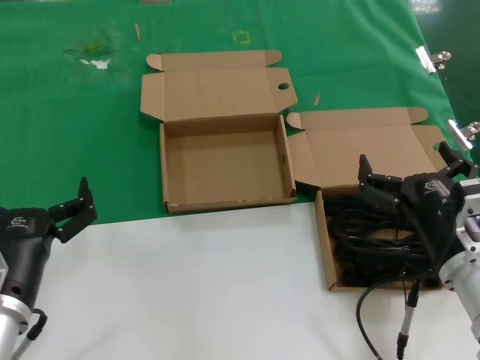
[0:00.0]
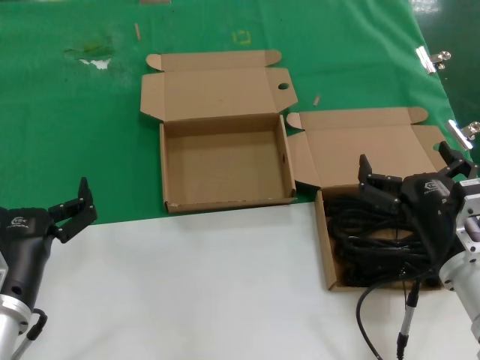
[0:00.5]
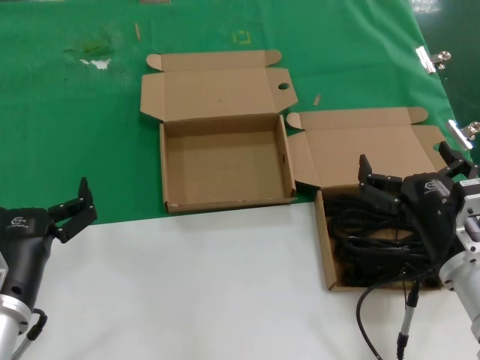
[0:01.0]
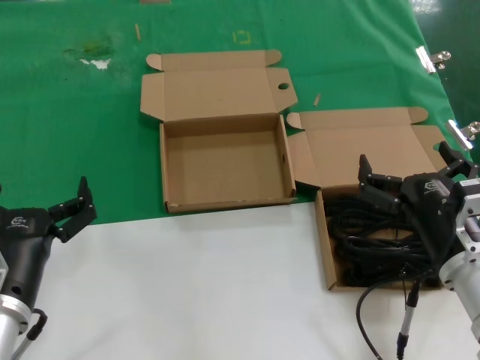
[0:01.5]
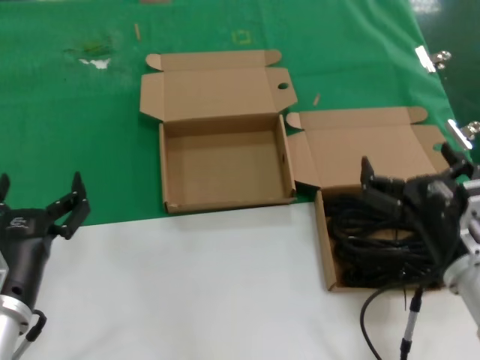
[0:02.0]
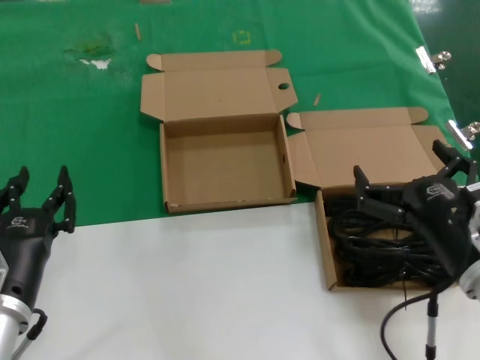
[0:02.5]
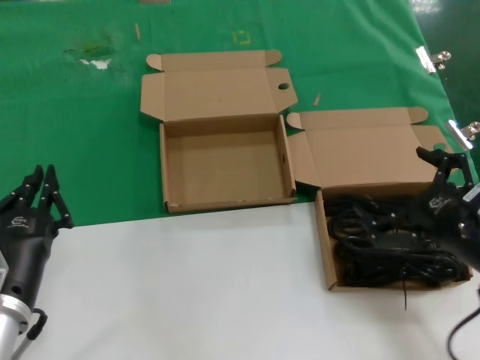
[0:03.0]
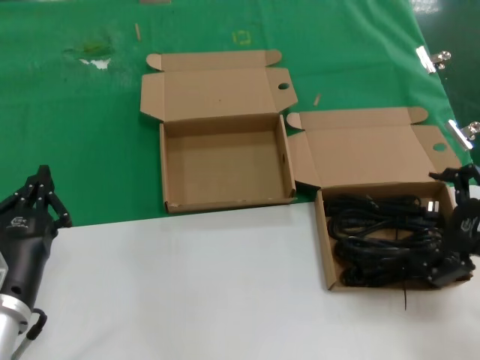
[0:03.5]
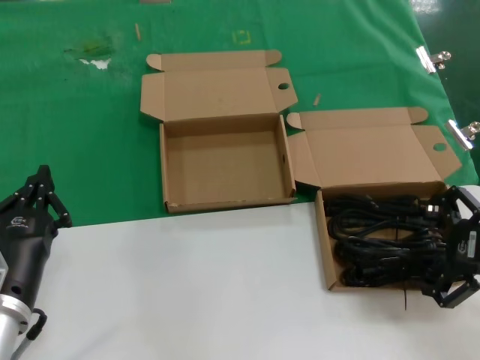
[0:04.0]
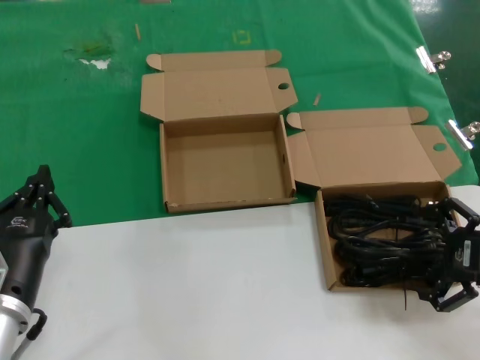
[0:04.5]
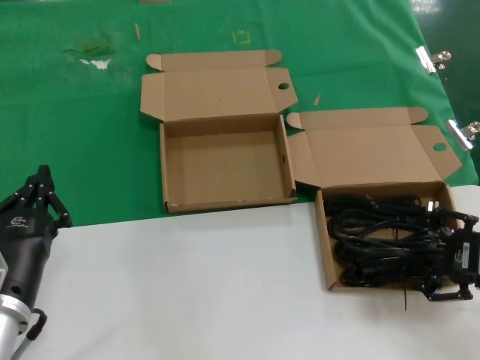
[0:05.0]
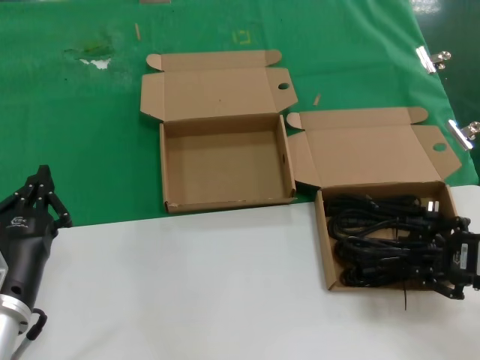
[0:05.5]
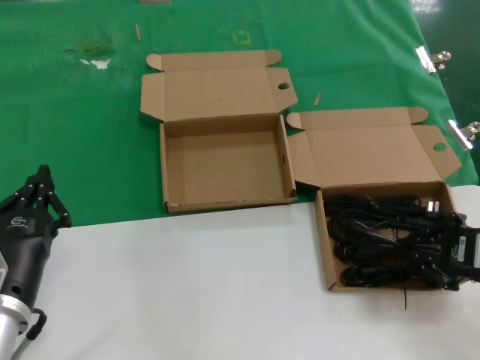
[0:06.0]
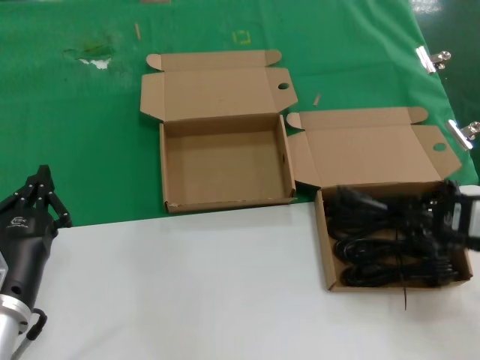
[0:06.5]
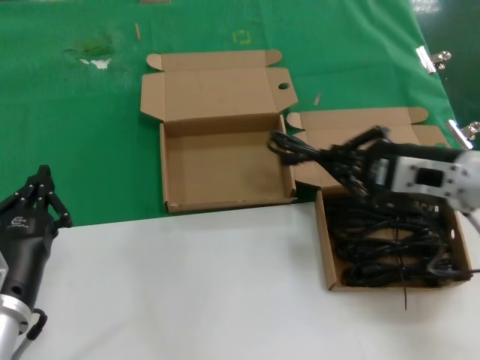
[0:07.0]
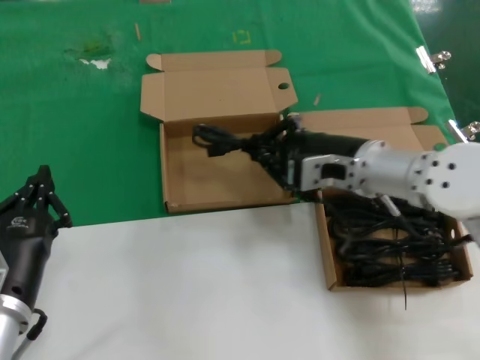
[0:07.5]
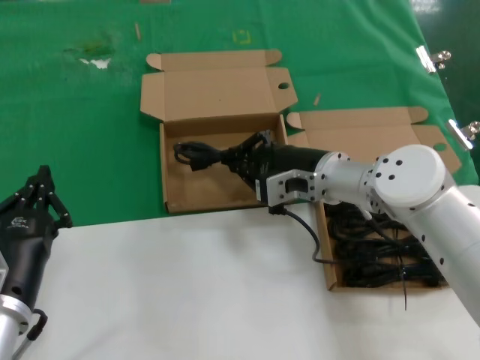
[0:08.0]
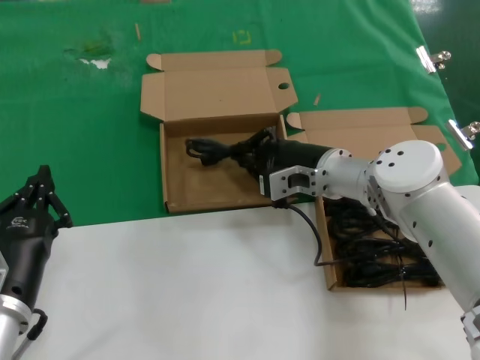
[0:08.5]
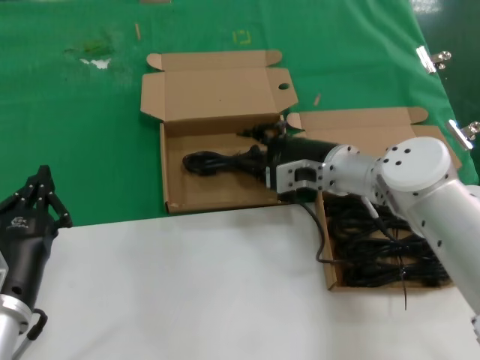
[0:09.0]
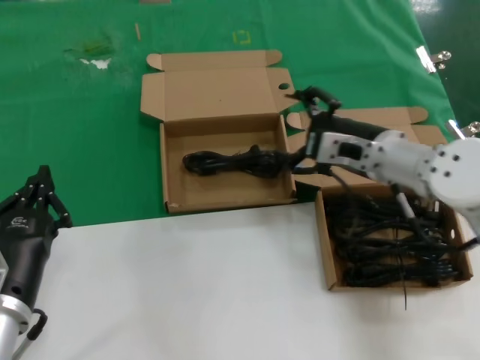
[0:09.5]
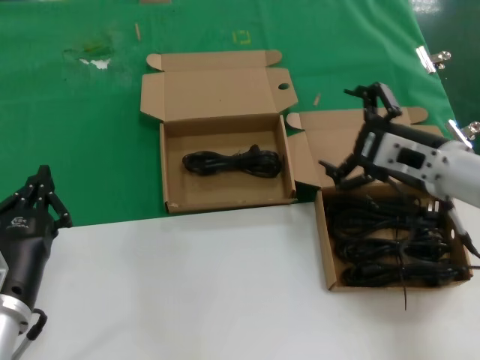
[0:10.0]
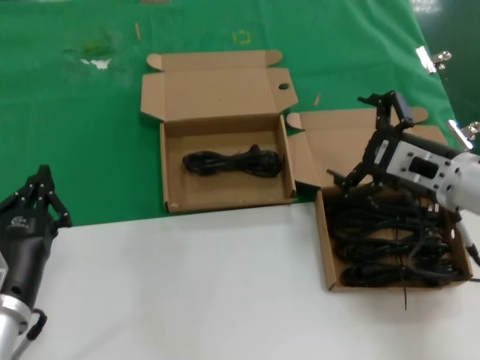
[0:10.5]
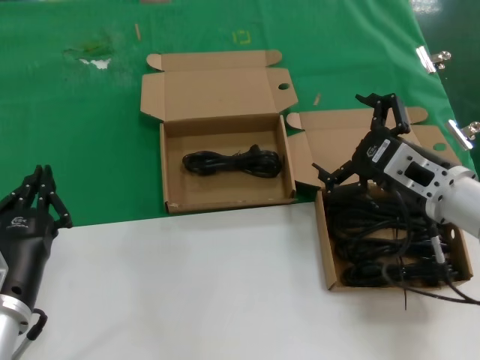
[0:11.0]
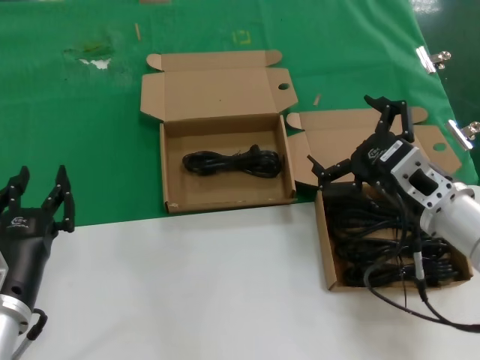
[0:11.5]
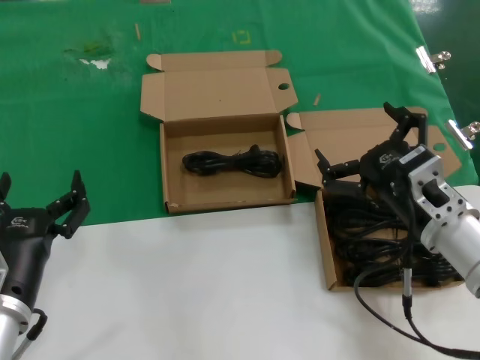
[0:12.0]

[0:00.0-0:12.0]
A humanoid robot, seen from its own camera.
Task of the whole recording: take the parts from the box containing them and put them into an empty box.
Step, 0:00.0 to 0:05.5: Grasp the data cable.
Step, 0:06.0 to 0:08.5: Place the data cable in the another box.
0:00.0 to 0:02.0: Both hands stay put.
0:02.0 to 0:04.0: The right hand travels to the right and upward by some 15 cm.
0:04.0 to 0:06.0: The hands stay close to where they were, moving slightly.
0:06.0 to 0:08.0: The right hand goes about 25 cm to the left and forward.
0:08.0 to 0:10.0: The right hand heads to the right and backward, covering about 15 cm.
0:10.0 to 0:12.0: The right hand moves backward and downward, approximately 10 cm.

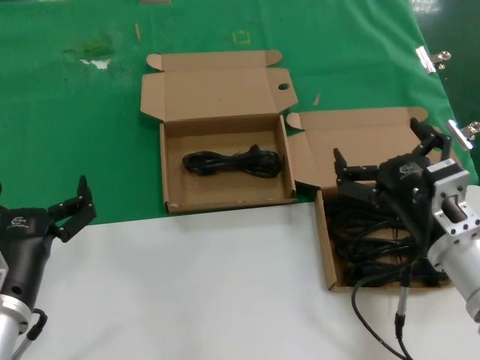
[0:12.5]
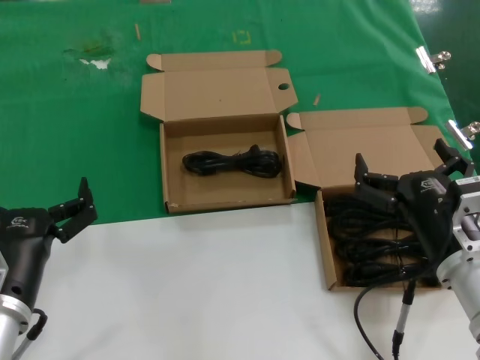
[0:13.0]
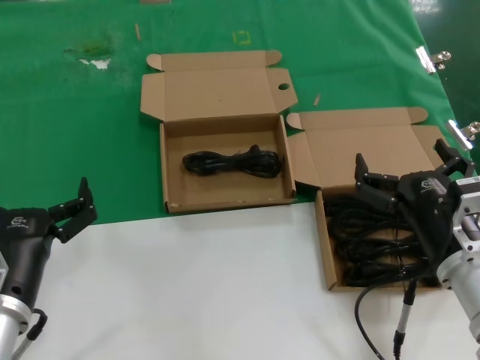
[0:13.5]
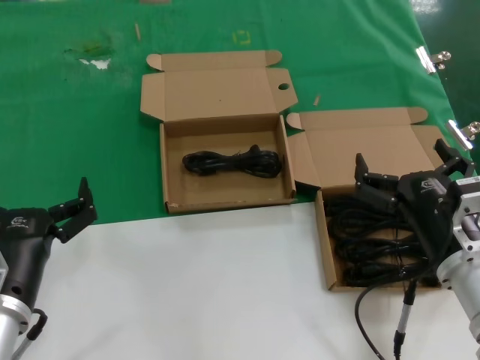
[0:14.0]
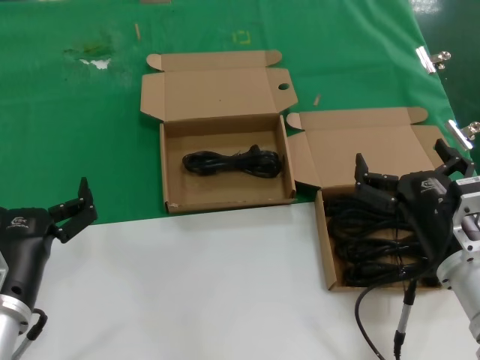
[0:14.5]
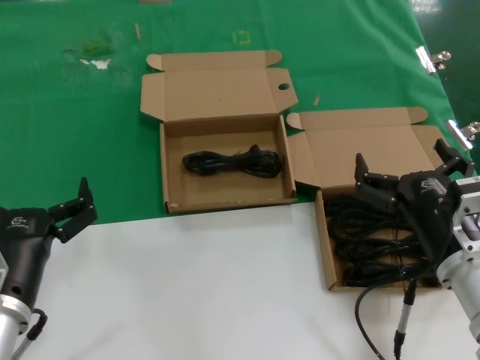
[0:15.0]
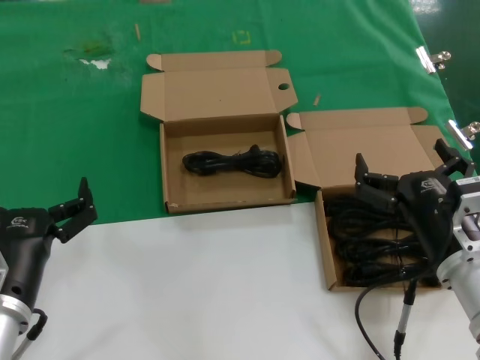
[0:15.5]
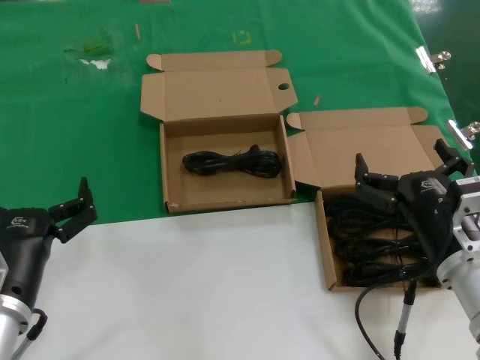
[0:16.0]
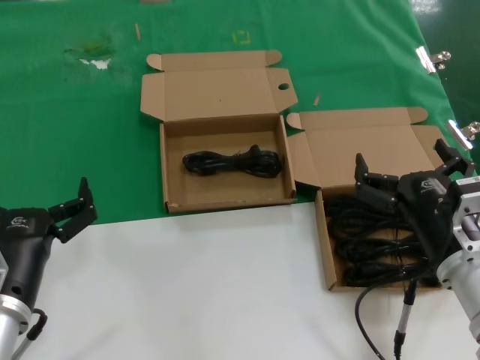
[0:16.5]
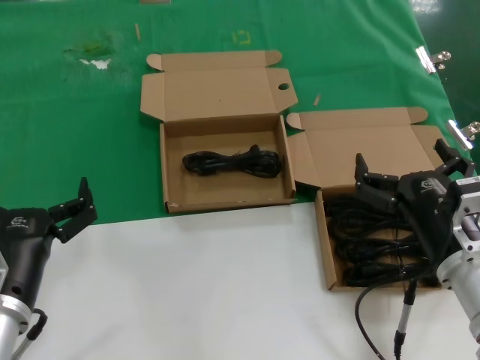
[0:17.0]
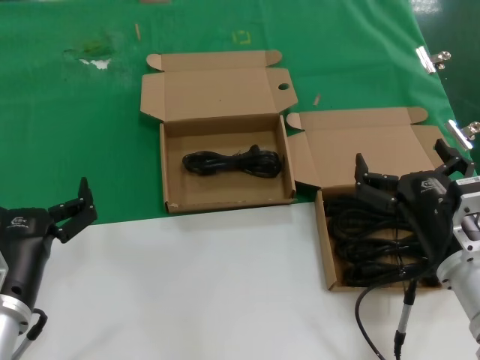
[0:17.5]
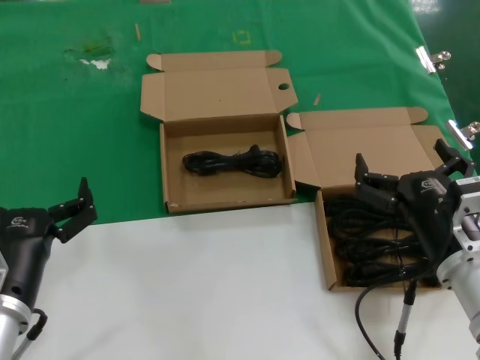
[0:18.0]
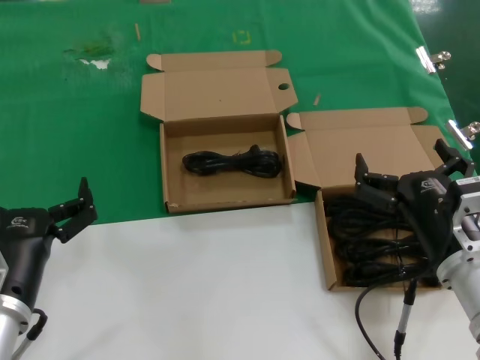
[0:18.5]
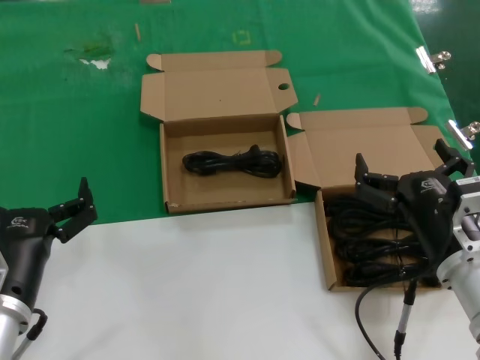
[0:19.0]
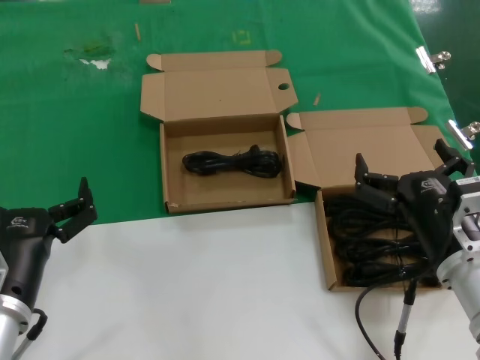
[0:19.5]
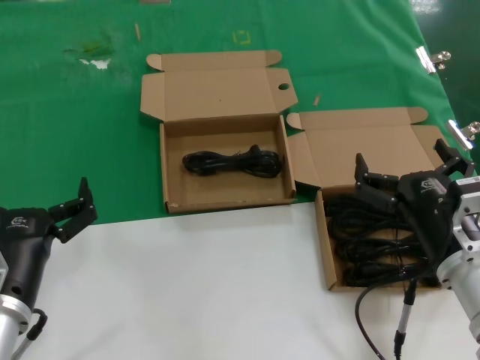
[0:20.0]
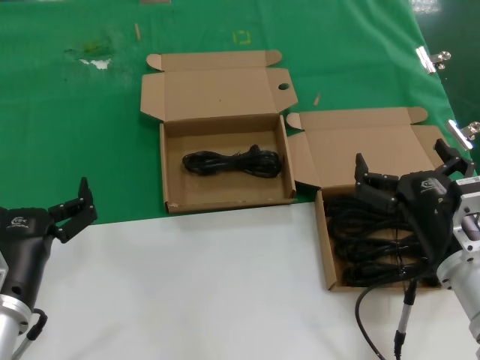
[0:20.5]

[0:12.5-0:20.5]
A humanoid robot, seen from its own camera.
Task of the whole recording: take the parts from the box containing them and put them into an empty box.
0:12.5 to 0:14.5: The hands move only a little.
0:14.5 to 0:20.5: The two hands keep their place.

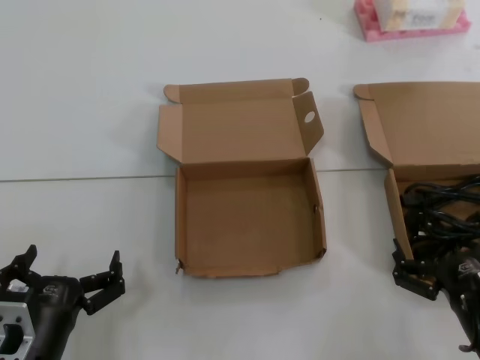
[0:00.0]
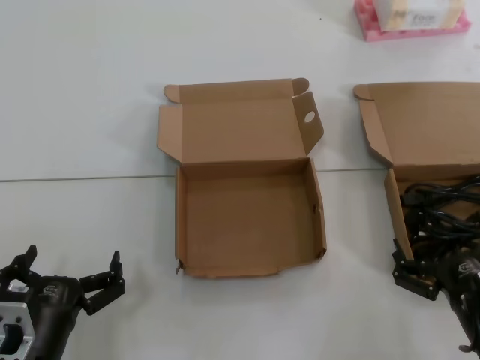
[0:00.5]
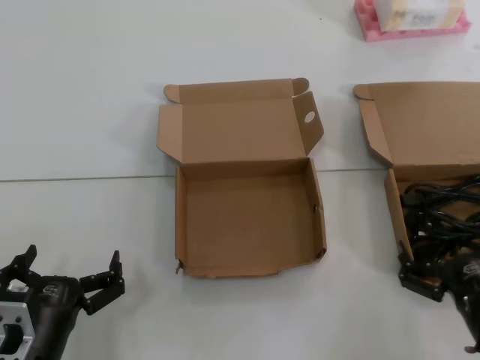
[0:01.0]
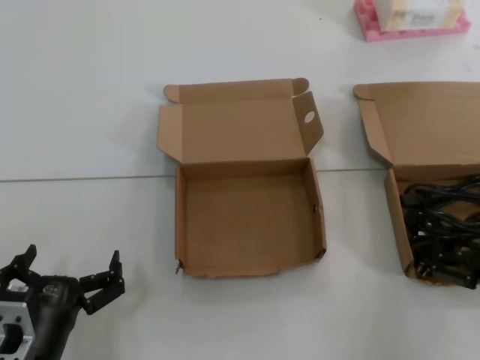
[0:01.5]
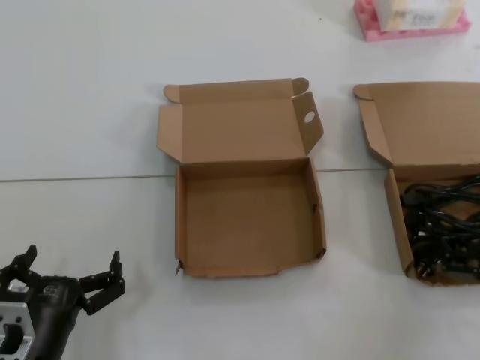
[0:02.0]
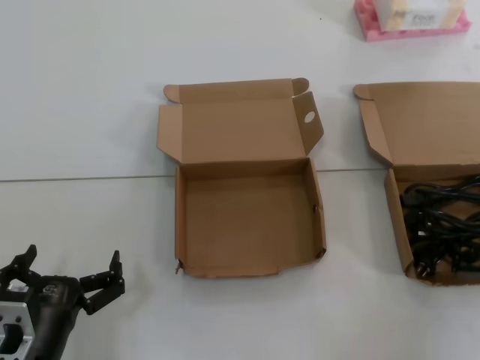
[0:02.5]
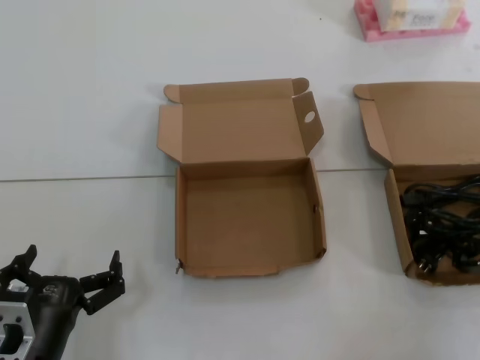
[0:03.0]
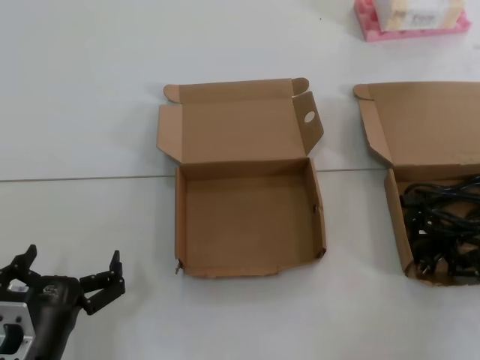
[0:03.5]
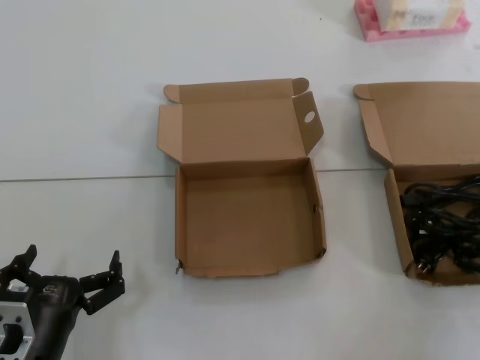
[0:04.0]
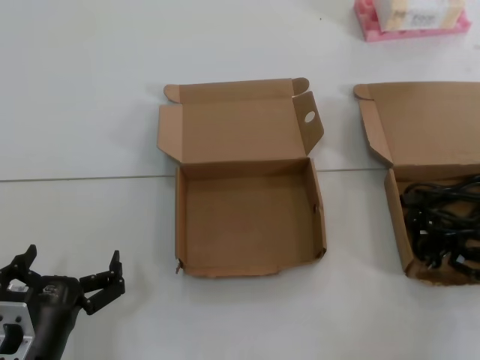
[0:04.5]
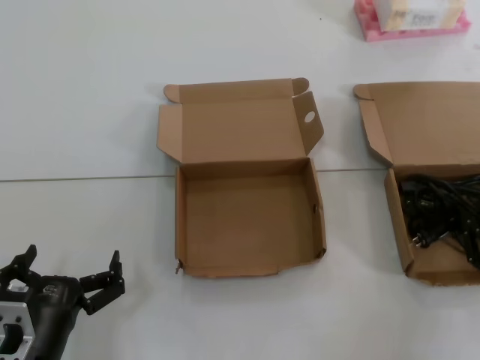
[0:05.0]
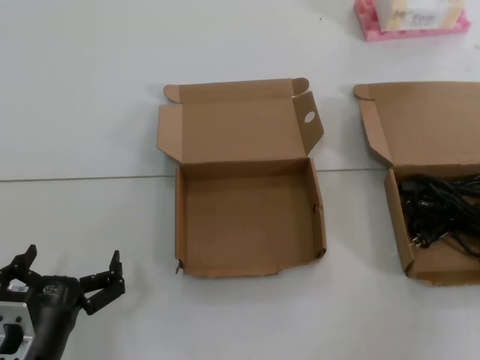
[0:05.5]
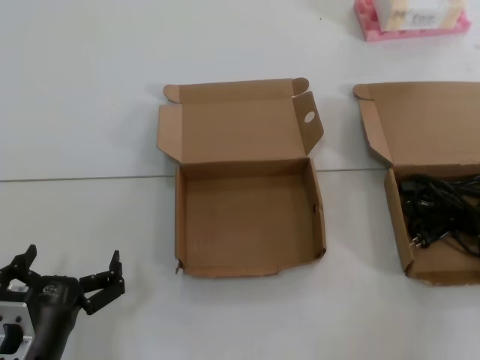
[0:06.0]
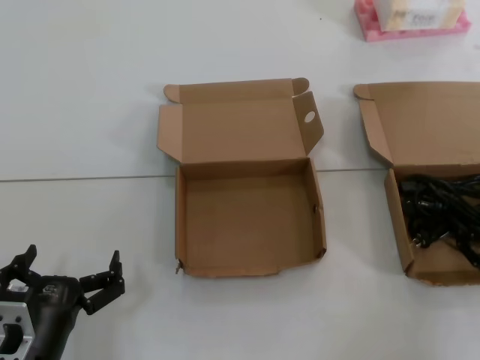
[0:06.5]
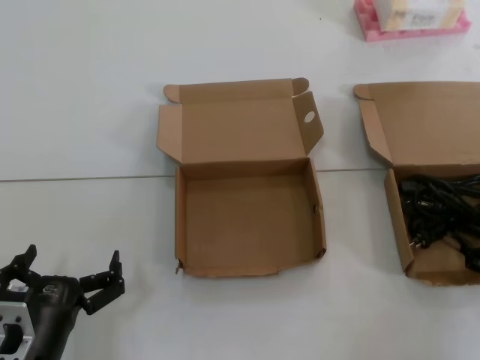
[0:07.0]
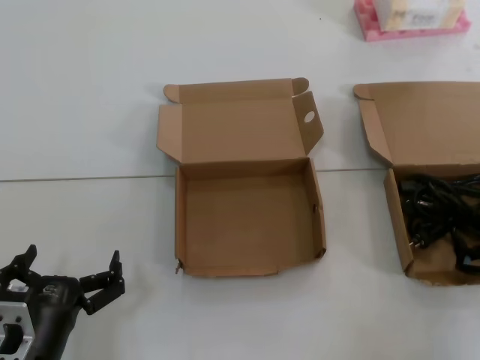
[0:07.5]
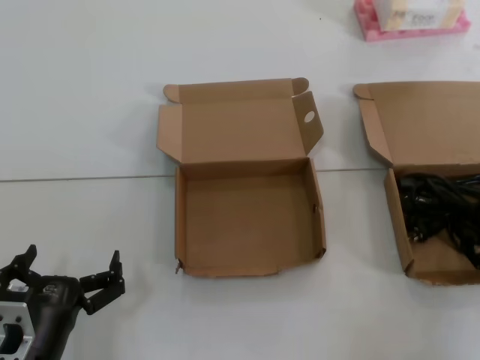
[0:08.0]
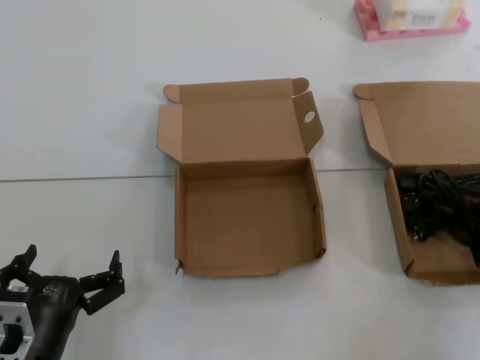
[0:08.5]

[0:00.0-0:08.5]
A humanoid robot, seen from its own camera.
Task of the whole recording: take the parts from the box containing them and put them into an empty box.
Step, 0:00.0 to 0:07.5: Grasp the data cable.
0:00.0 to 0:02.0: The right hand goes about 5 cm to the right.
0:04.0 to 0:06.5: There are only small adjustments of the hands.
